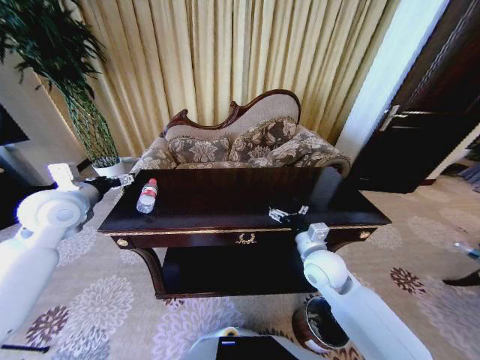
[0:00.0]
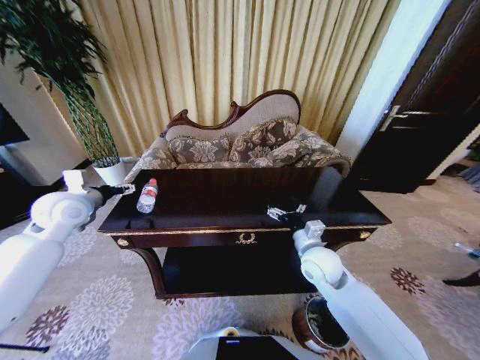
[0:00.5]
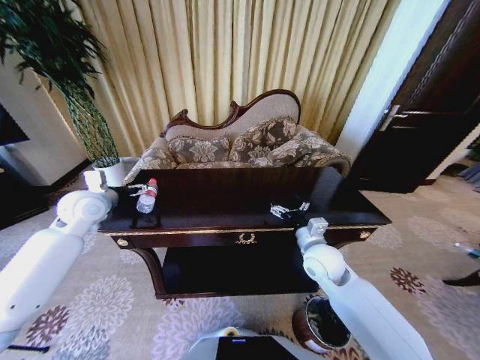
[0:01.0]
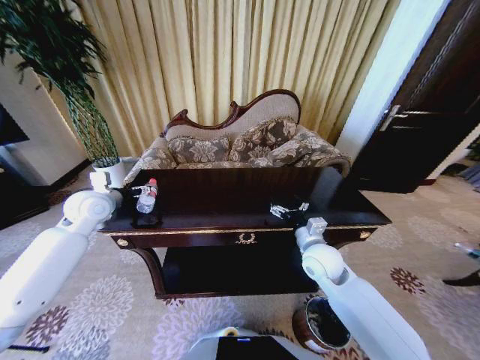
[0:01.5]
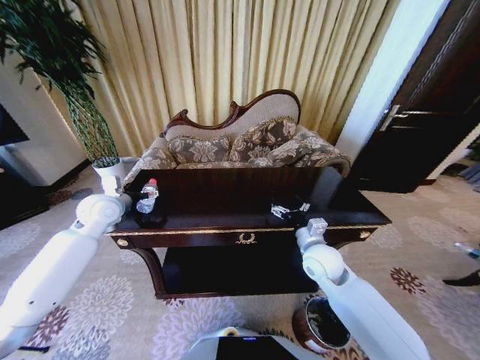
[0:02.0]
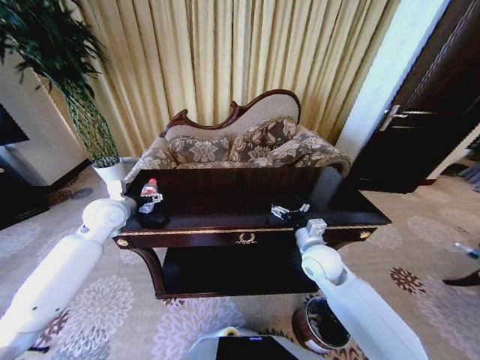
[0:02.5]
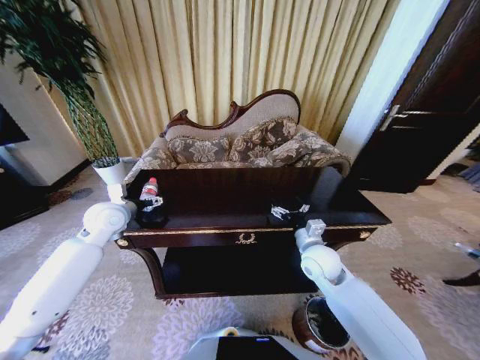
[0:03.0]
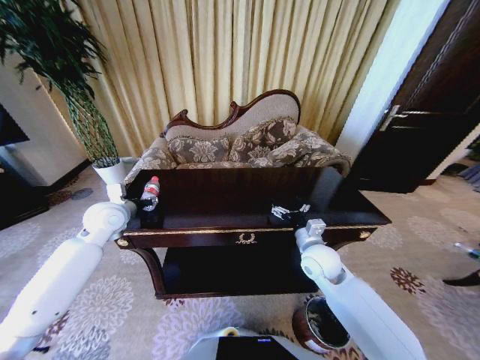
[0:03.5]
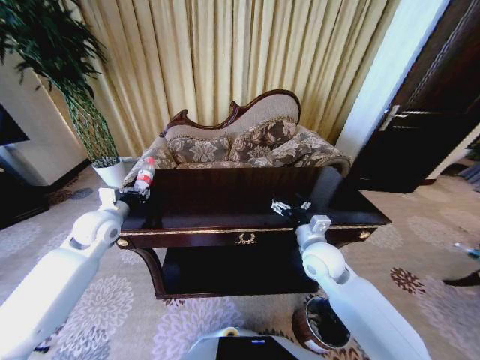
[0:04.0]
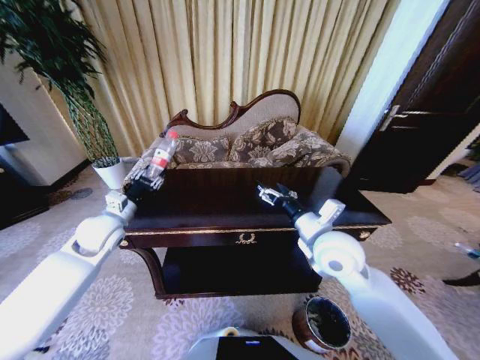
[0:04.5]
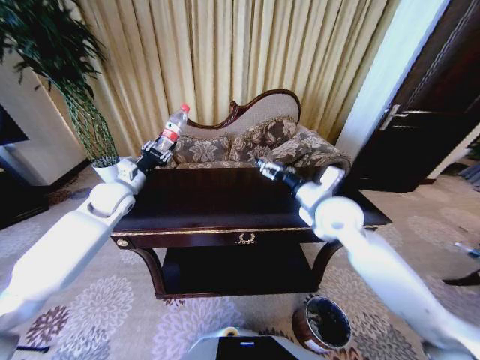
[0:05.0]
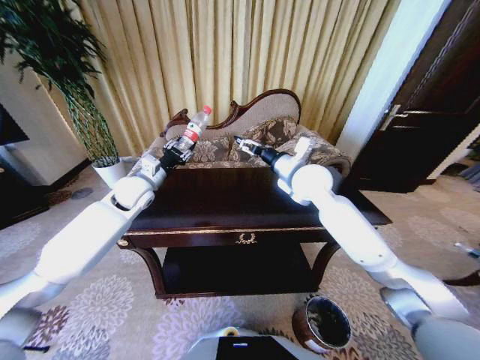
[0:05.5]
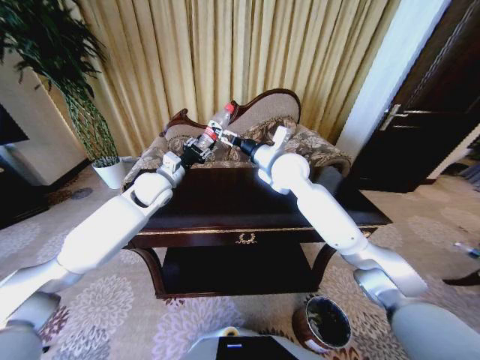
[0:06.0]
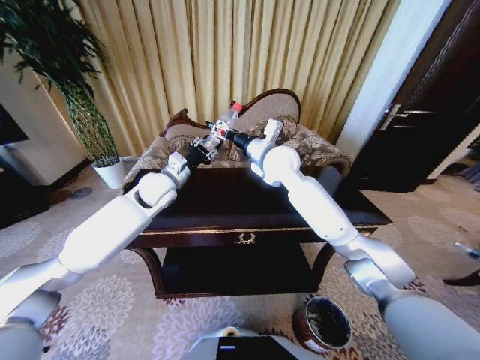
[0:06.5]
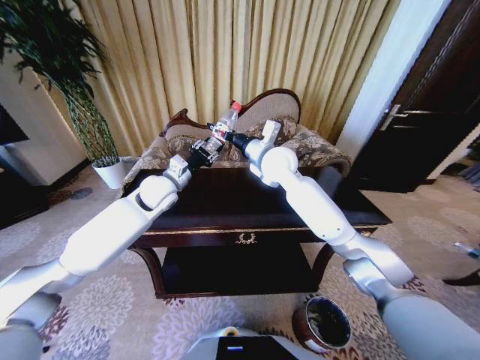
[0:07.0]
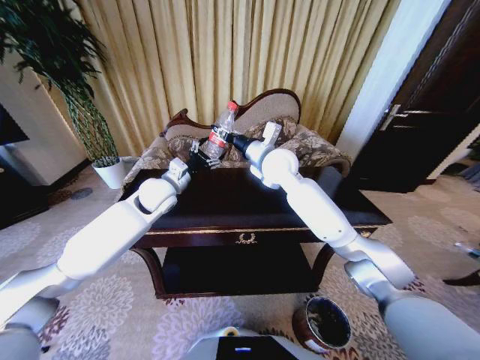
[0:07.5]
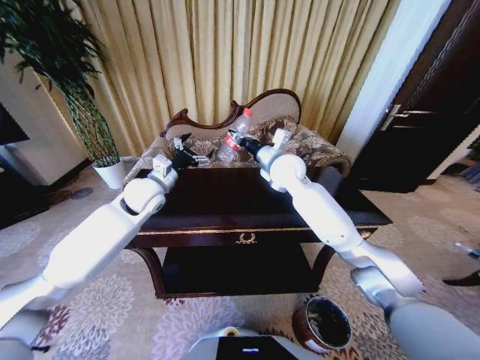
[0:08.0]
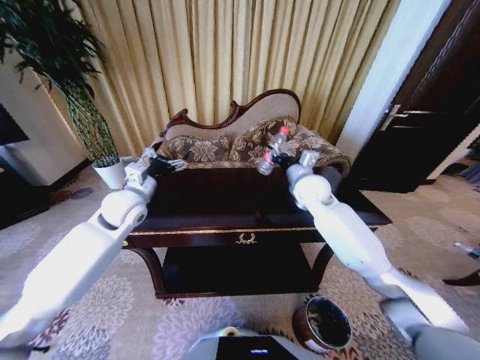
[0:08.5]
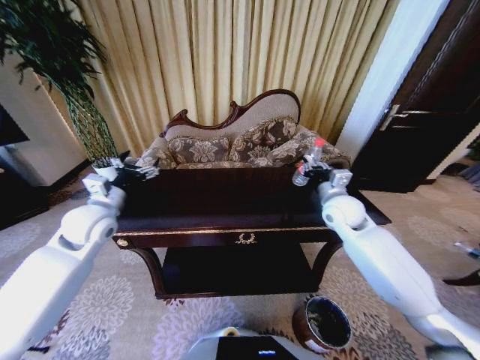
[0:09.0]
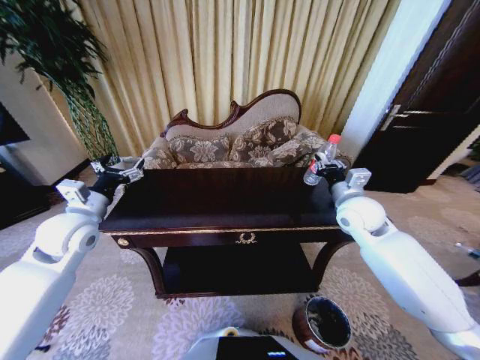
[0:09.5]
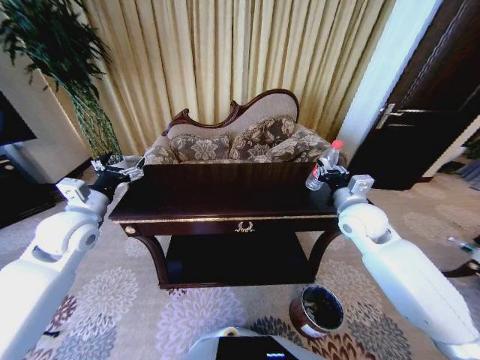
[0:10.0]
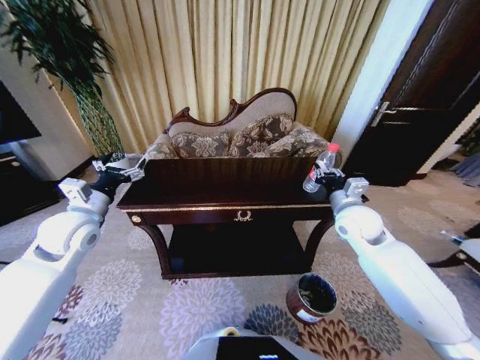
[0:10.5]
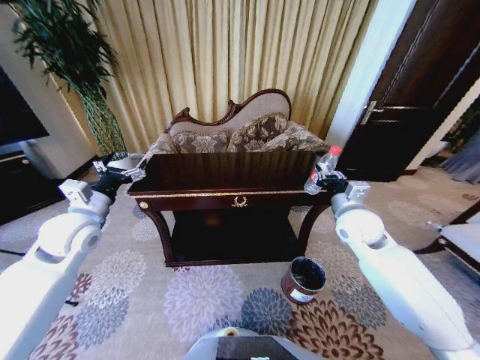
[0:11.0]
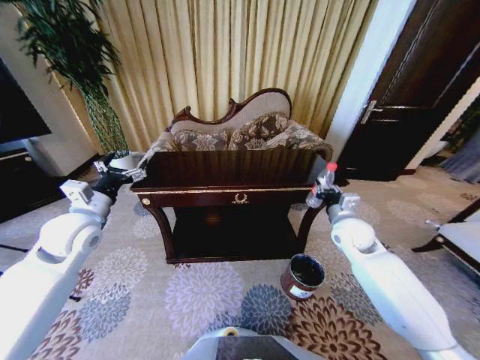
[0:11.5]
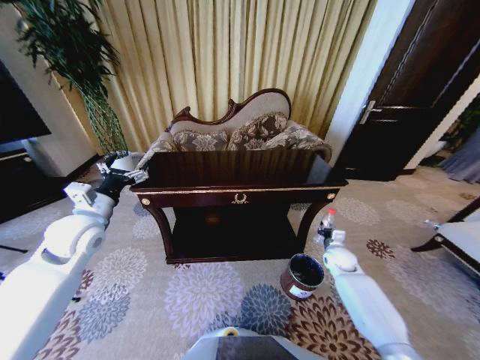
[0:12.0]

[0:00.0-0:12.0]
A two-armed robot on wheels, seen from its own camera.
Task of the whole recording: Move to the front of the table and place the trash on the table into the trash bin.
0:00.0 to 0:02.0: The left gripper is displaced downward and forward by roughly 10 cm.
0:02.0 to 0:04.0: The left gripper closes.
0:04.0 to 0:06.0: The right gripper is displaced upward, forward and to the left by roughly 25 cm, while the left gripper shifts some 15 cm to the right and forward.
0:06.0 to 0:08.0: The right gripper closes its fingers, while the left gripper opens up.
0:08.0 to 0:10.0: The right gripper goes approximately 20 cm to the right, backward and downward. The left gripper goes about 15 cm to the left and backward.
0:10.0 to 0:12.0: The right gripper is displaced downward by about 25 cm.

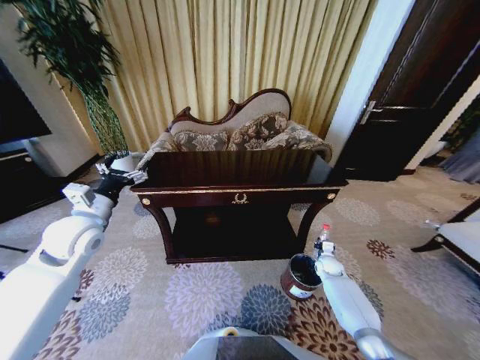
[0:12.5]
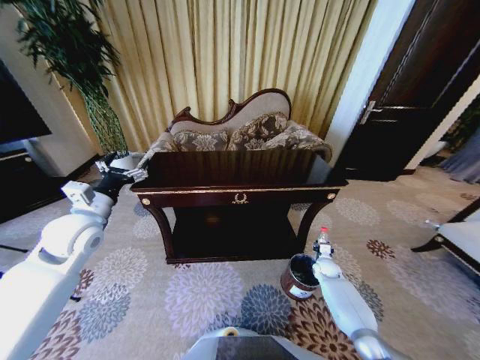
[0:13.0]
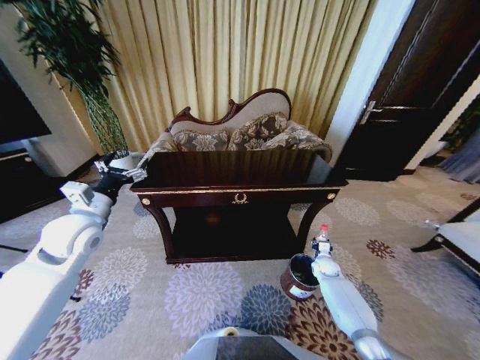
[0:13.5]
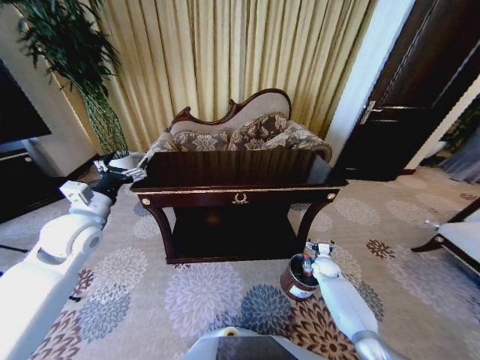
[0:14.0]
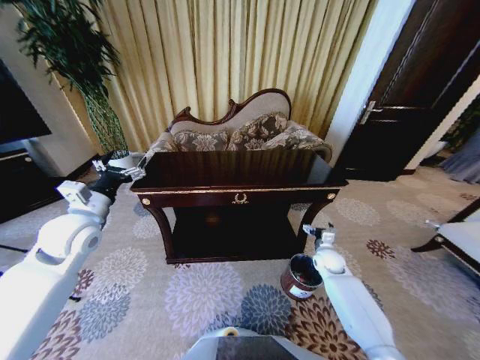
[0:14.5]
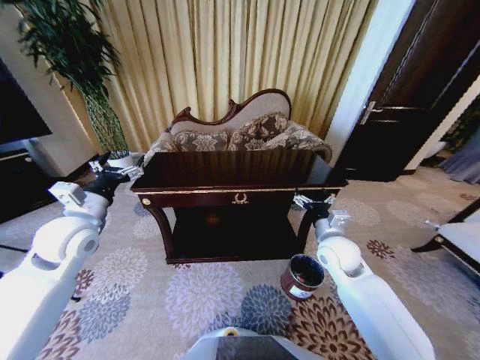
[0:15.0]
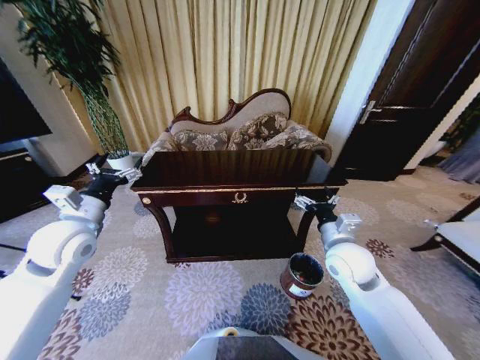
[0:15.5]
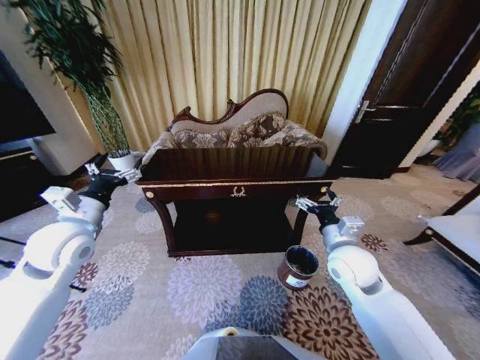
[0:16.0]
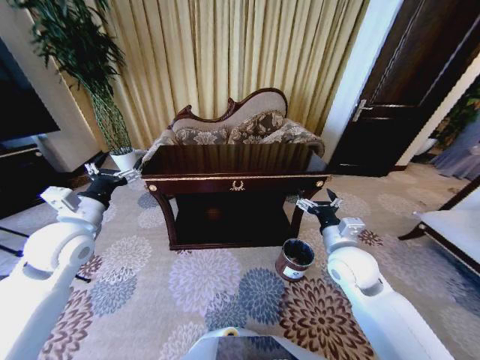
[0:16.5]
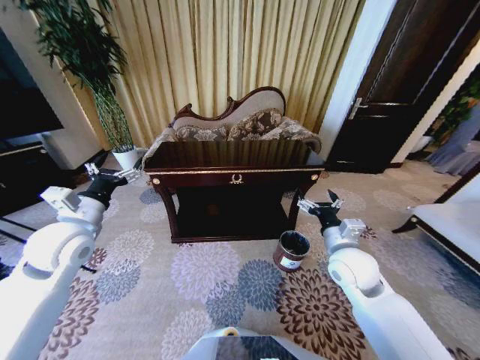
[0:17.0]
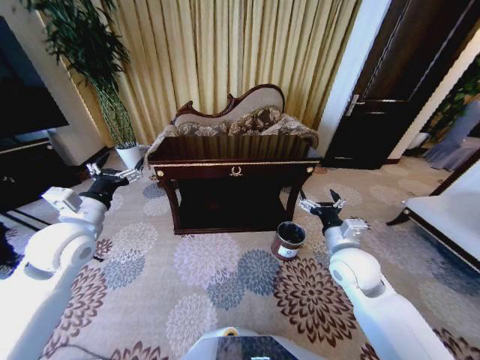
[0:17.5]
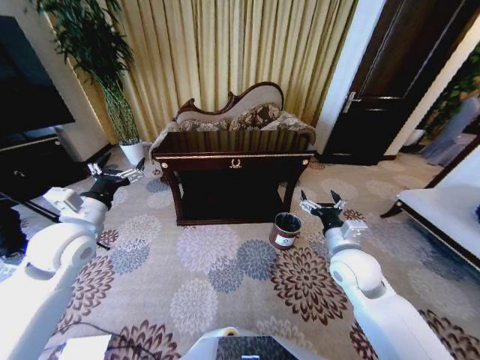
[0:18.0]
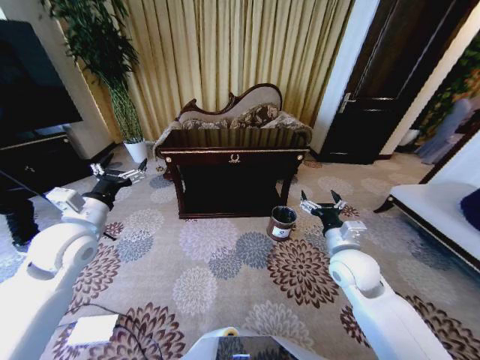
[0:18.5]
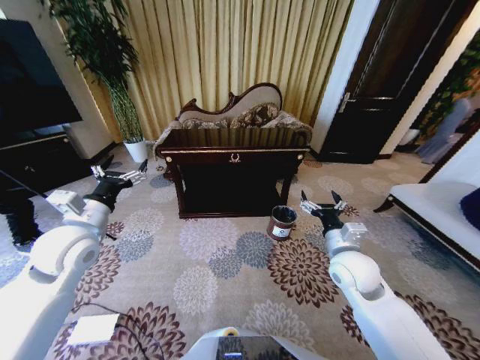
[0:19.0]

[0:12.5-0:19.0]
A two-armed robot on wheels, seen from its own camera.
Task of the whole recording: Move to the front of the table and place the trash on the table into the trash bin.
0:12.5 to 0:14.5: The right gripper shifts some 10 cm upward, and opens its fingers.
0:14.5 to 0:17.0: The right gripper heads upward, backward and to the left, covering roughly 25 cm.
